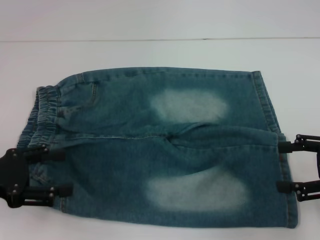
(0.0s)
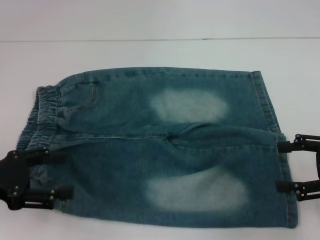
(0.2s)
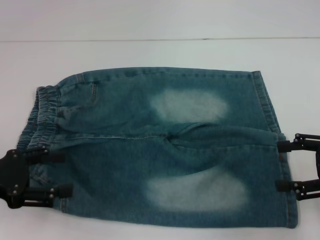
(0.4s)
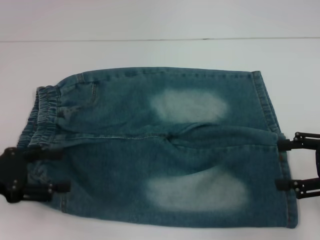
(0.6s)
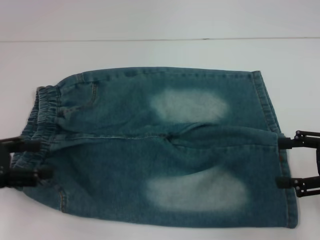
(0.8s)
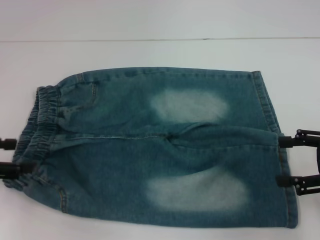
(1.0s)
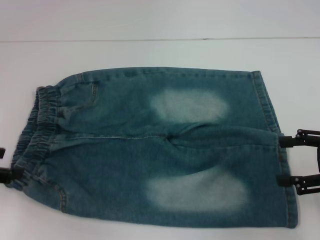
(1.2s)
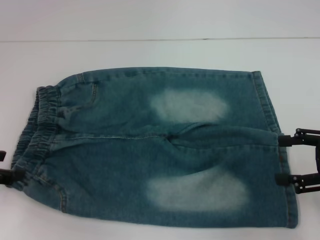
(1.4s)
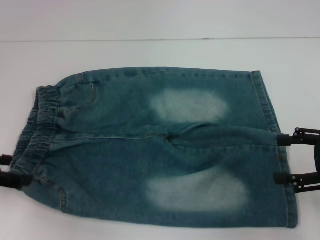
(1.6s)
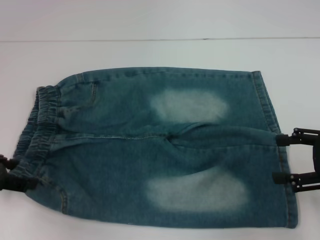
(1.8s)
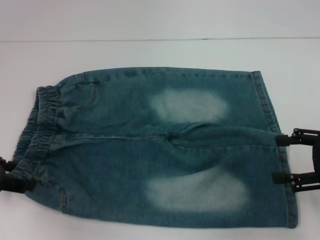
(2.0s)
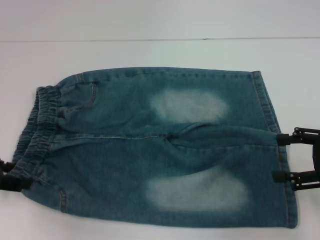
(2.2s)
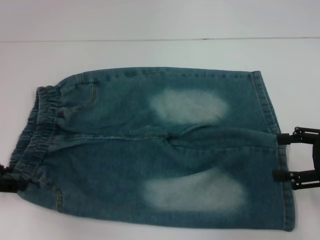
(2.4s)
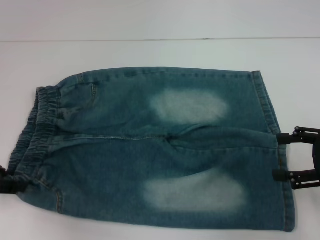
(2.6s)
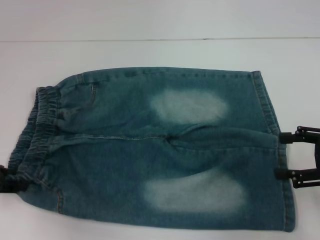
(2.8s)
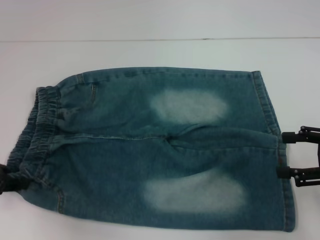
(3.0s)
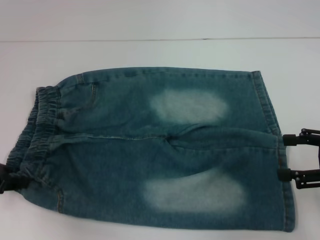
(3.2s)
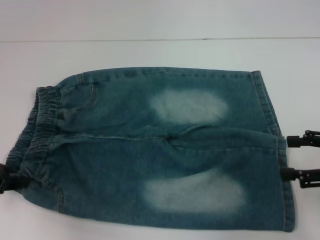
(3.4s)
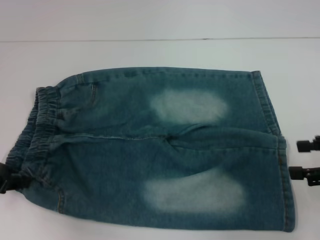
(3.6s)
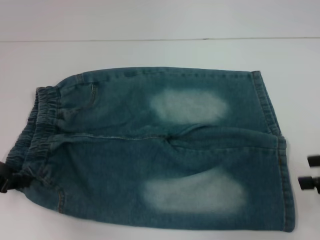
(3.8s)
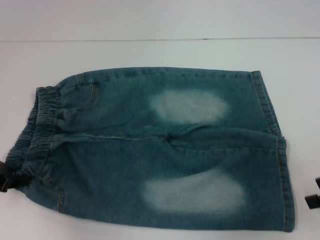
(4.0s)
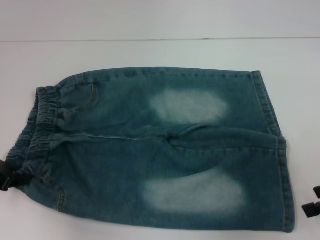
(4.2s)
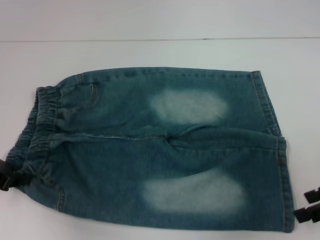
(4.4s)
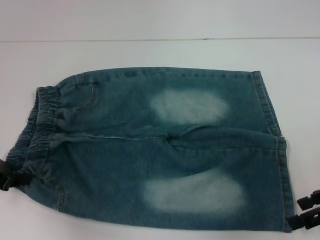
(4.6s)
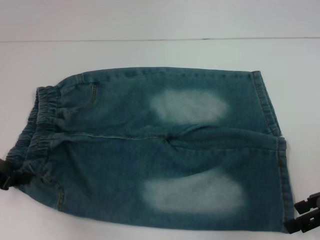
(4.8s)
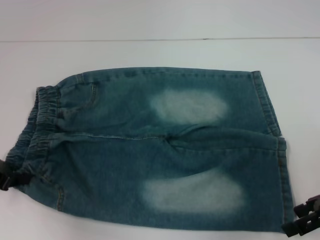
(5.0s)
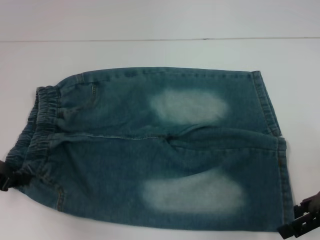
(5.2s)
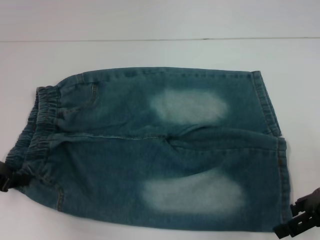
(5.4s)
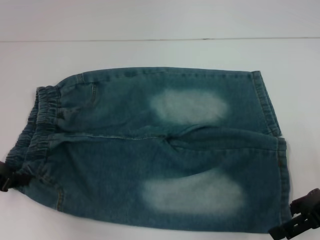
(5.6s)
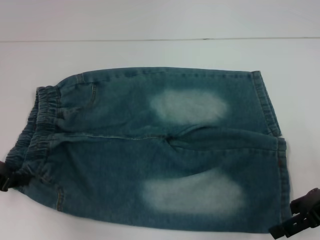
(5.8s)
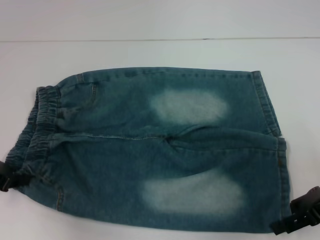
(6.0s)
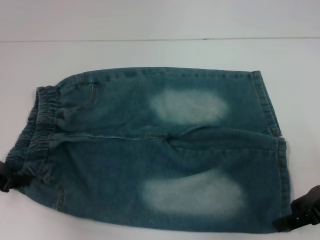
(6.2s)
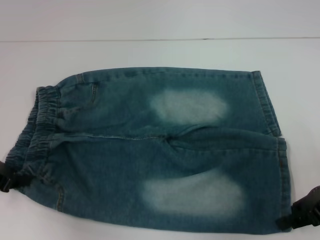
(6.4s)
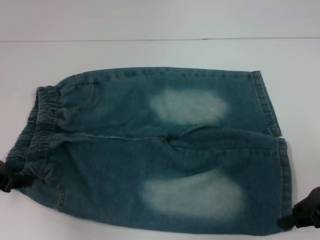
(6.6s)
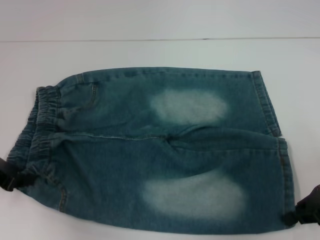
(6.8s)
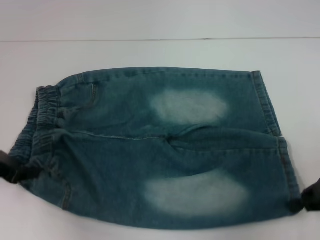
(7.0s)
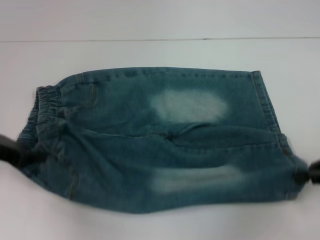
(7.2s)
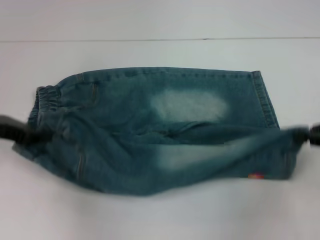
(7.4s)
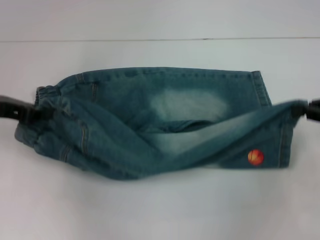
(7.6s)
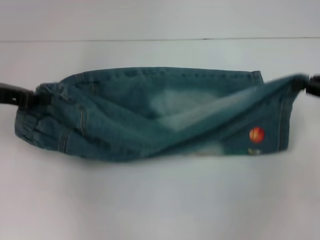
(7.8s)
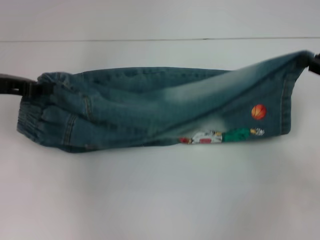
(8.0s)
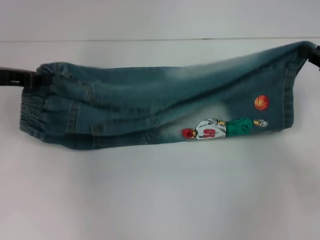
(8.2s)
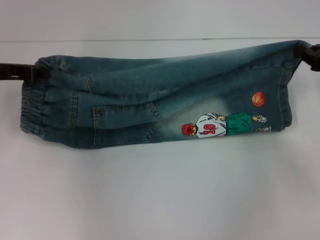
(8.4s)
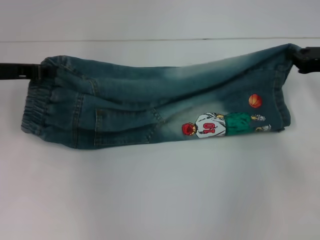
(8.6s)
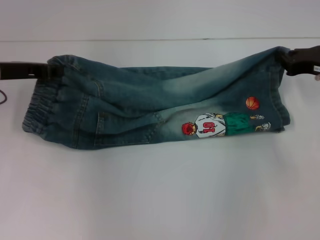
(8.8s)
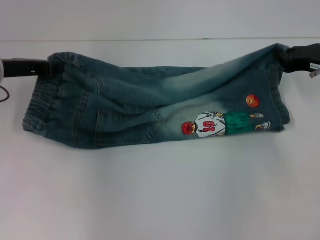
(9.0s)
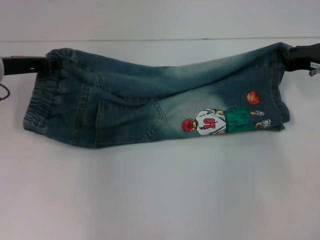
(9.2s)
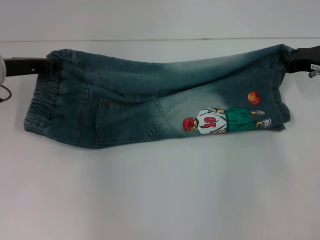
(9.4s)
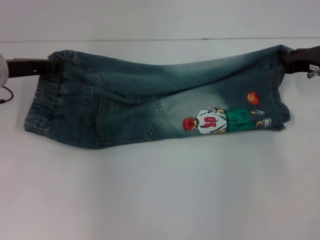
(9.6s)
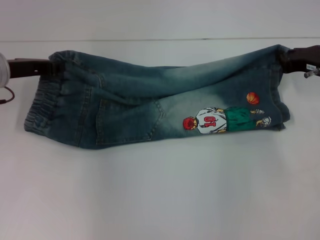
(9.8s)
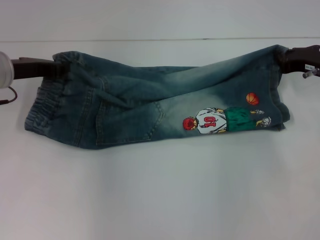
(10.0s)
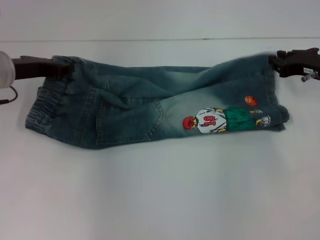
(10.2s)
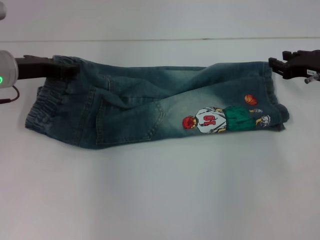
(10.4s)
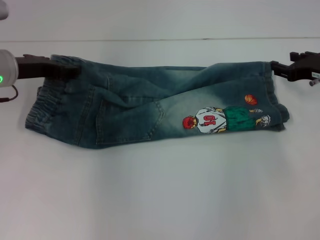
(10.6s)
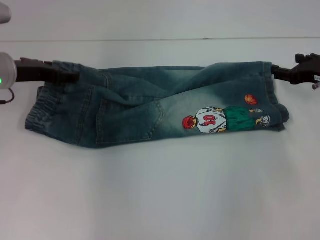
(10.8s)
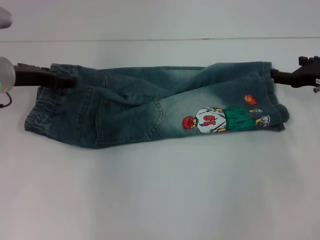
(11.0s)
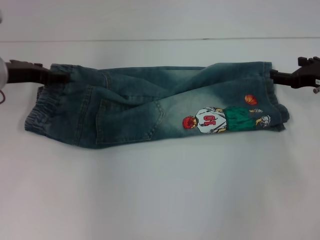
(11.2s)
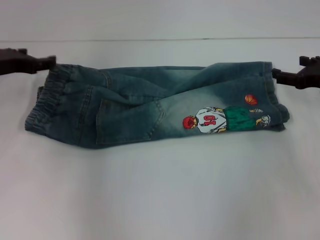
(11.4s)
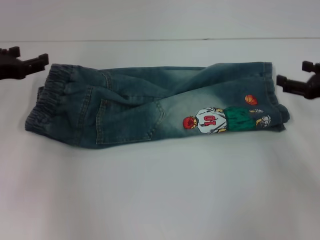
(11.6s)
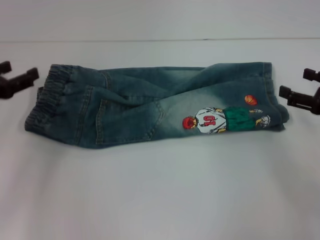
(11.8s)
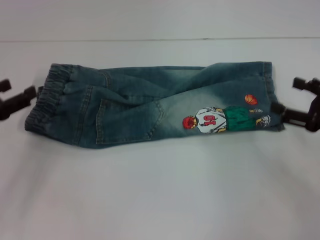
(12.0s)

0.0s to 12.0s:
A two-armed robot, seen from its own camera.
Step, 0.0s to 2.4s: Hold the lower left waistband with your left hand.
Step, 2.6s to 6.4s: Grab the lower right pant leg with your right hand.
Step, 6.8s to 10.2s: Fold to the left with your right hand.
Step, 10.4s to 11.0s: Press the middle of the pants with your left hand.
0.0s to 1.6s: The left gripper ends up roughly 5 cm from where it was.
1.6s to 3.0s: The left gripper closes up.
4.4s to 6.0s: The grippers stay close to where they were, moving slightly.
6.0s to 7.6s: The left gripper moves some 5 cm. The right gripper heads upward and to the right, covering some 5 cm, and closes its fingers.
7.6s to 9.0s: The right gripper shifts approximately 10 cm forward. Meanwhile the left gripper shifts by approximately 5 cm.
9.0s to 10.4s: The grippers move only a little.
10.4s to 12.0s: The right gripper heads backward, covering some 10 cm, and opens up; the left gripper shifts approximately 15 cm backward and to the left, and opens.

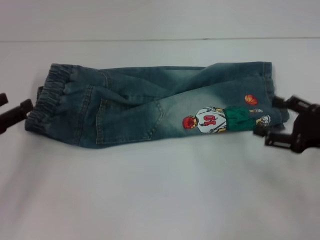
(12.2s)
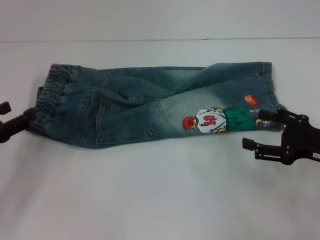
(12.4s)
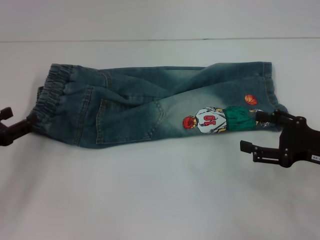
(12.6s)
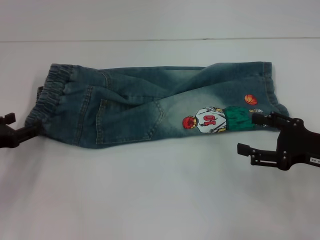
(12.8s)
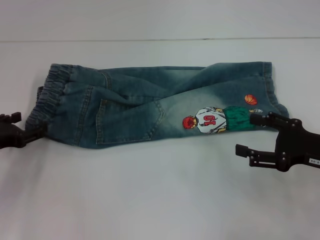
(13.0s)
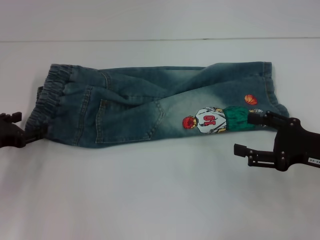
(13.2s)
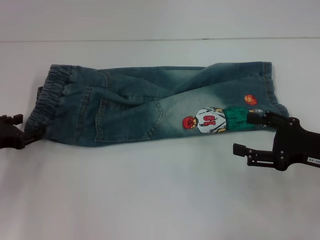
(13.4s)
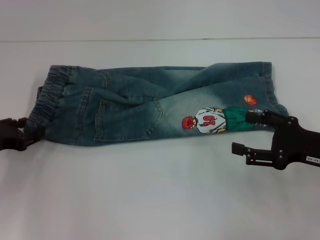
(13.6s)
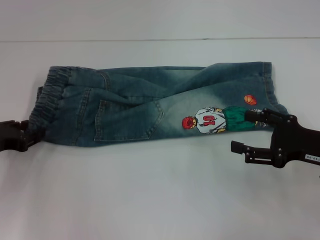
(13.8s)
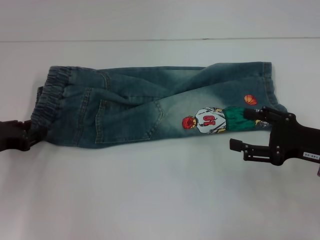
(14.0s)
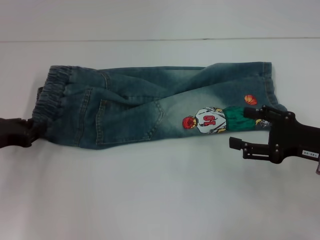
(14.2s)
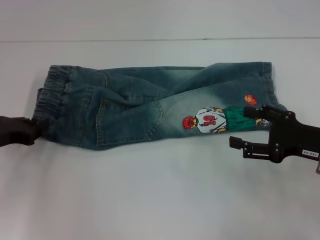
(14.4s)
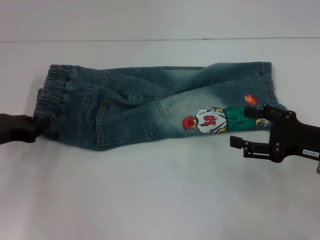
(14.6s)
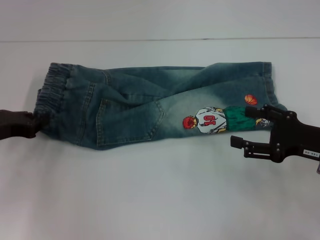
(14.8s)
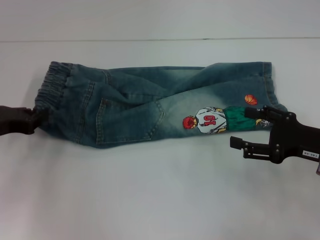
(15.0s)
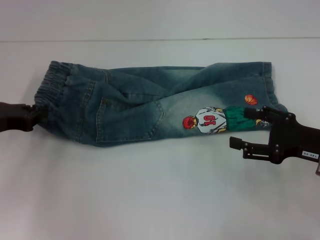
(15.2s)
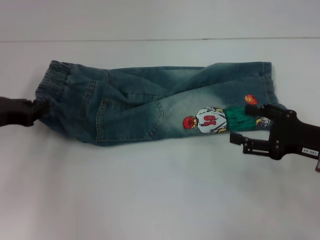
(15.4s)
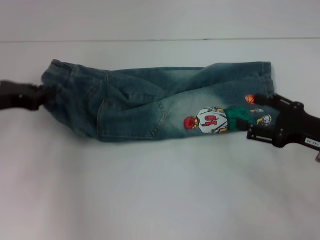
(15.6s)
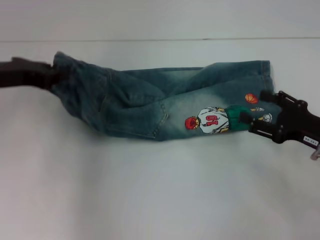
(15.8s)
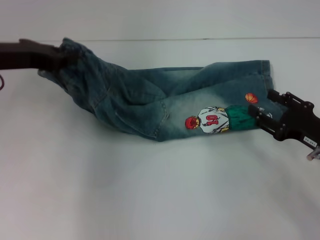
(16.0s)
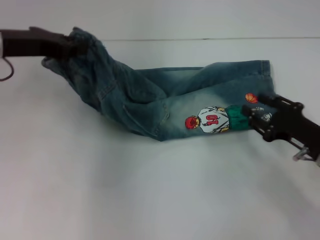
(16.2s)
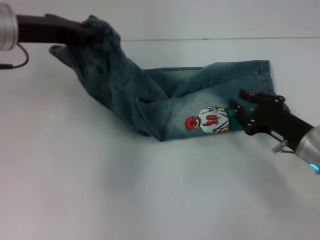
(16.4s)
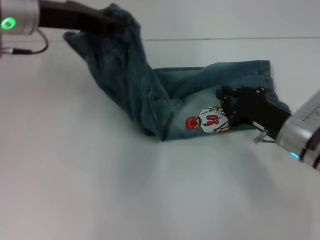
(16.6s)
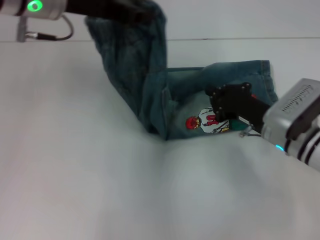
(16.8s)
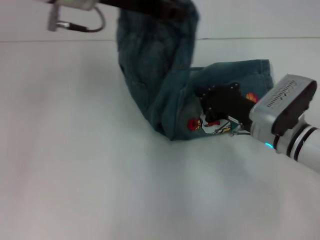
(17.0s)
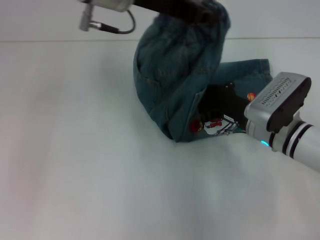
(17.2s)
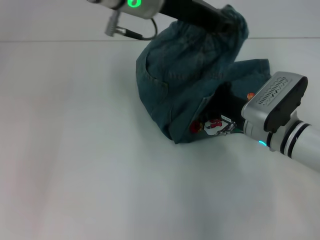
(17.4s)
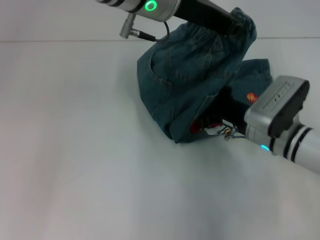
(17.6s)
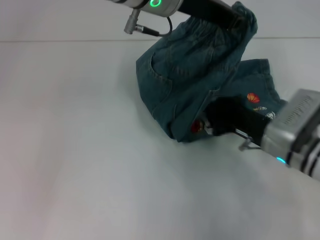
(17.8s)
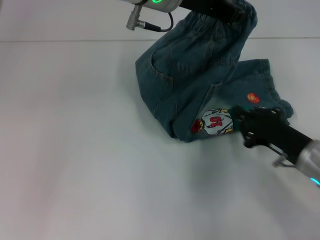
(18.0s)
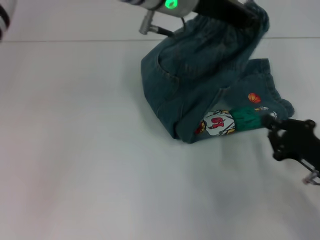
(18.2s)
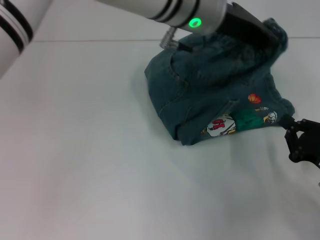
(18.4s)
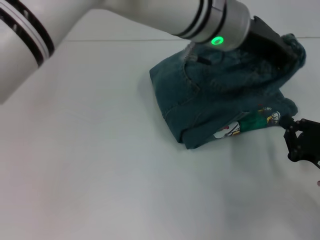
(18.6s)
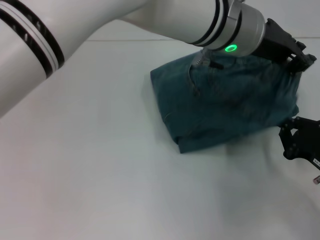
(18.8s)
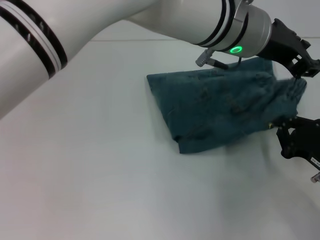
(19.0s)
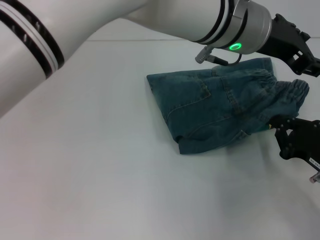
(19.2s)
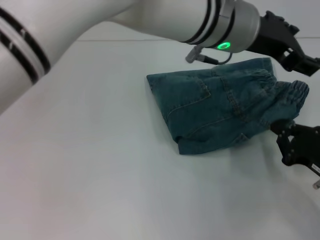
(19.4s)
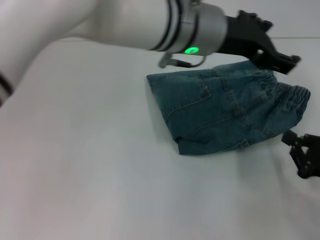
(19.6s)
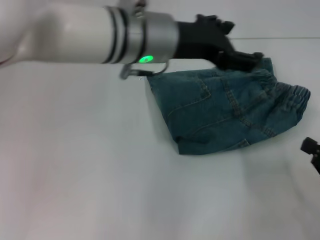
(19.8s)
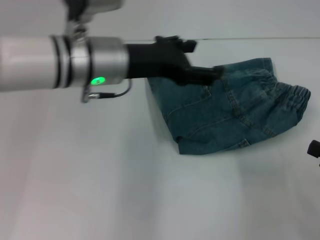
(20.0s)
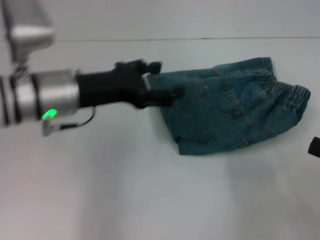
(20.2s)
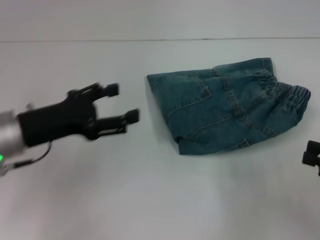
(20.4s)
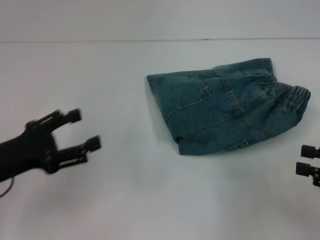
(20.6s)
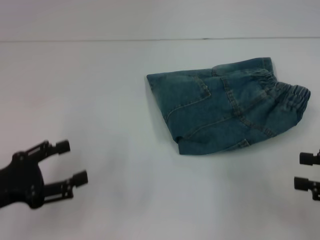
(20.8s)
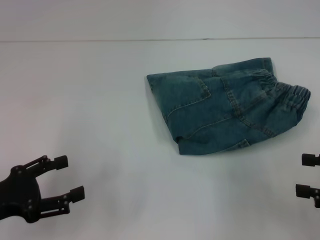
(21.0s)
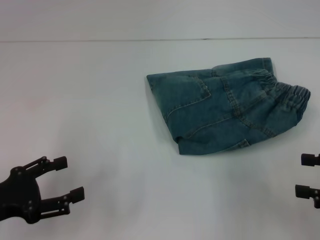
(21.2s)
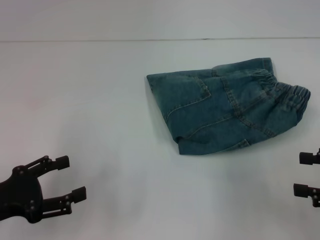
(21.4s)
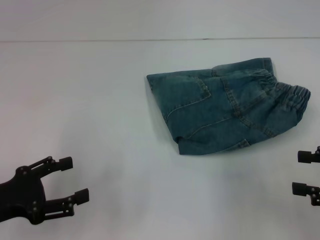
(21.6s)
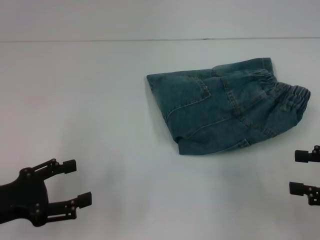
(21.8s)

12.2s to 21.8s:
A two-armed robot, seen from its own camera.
Step, 12.2s to 13.8s: Hold the waistband with your left hand.
Step, 14.2s to 17.4s: Press the middle of the pants with your right hand.
Step, 17.8s to 19.4s: Fold to the right with your left hand.
12.2s to 13.8s: The left gripper shifts by some 5 cm.
13.8s to 15.4s: The left gripper moves some 5 cm, and closes up.
15.4s to 17.0s: The right gripper shifts about 10 cm to the left and forward, and closes up. Meanwhile the left gripper goes about 25 cm to the right and upward.
17.0s to 18.6s: The right gripper moves to the right and backward, approximately 15 cm. The left gripper is displaced to the right by some 15 cm.
18.6s to 20.2s: The left gripper travels to the left and downward by approximately 20 cm, and opens its fingers, while the right gripper shifts some 10 cm upward and to the right.
20.2s to 21.8s: The left gripper moves backward, to the left and downward, roughly 20 cm. The right gripper opens its fingers.
